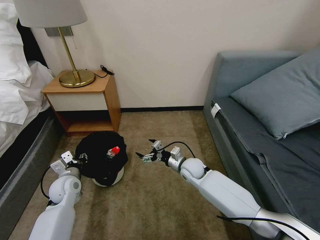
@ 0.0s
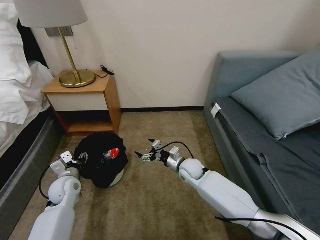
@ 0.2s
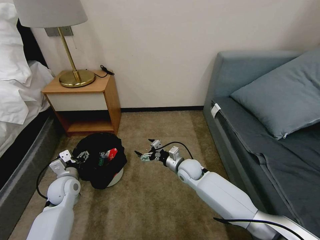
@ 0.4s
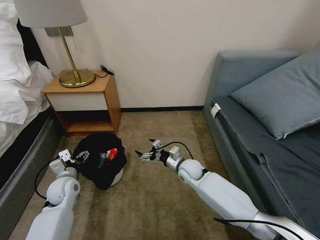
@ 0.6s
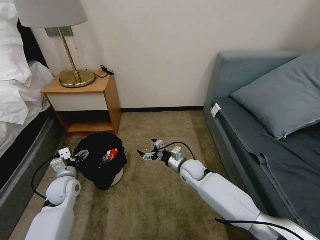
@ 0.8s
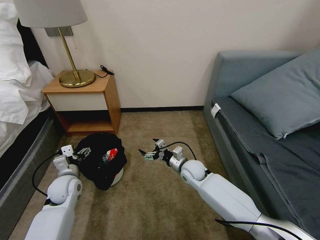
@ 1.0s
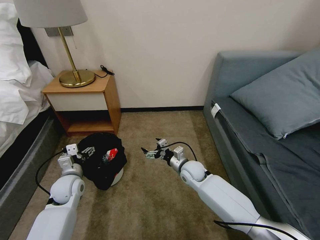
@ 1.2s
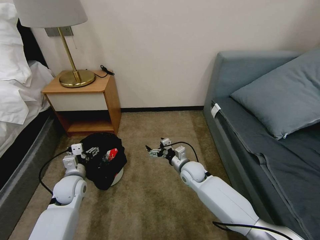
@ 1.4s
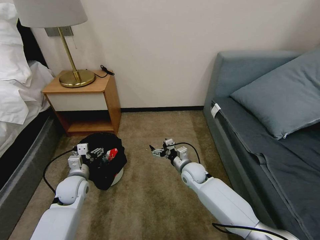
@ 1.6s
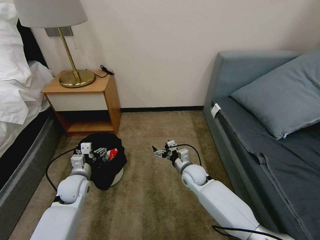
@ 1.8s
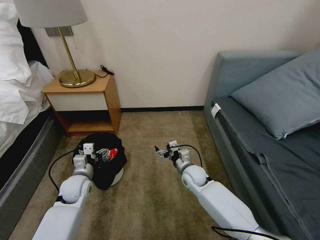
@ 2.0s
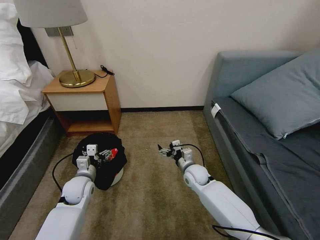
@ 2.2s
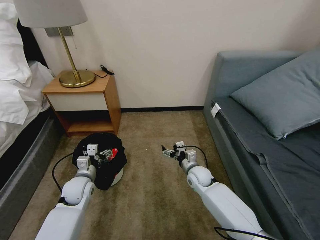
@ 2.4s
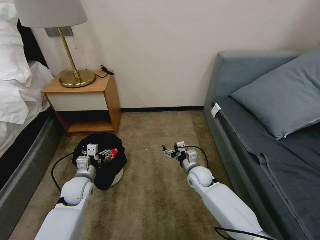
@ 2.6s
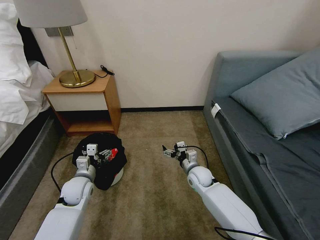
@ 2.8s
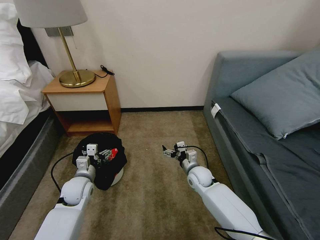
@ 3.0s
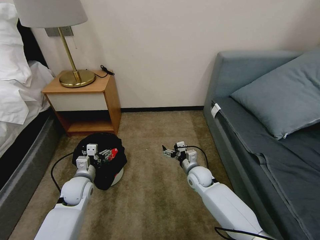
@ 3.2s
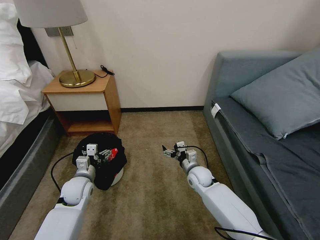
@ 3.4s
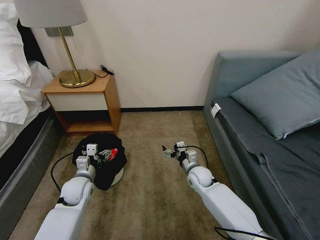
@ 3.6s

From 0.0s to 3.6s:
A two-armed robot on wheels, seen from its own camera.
Task of the whole recording: Pick up the trash bin, then pick up the garbage on the floor and place it into the trash bin.
From 0.0s to 1.8s: The left gripper opens its fingers.
From 1.8s to 3.6s: The grippers move only a little.

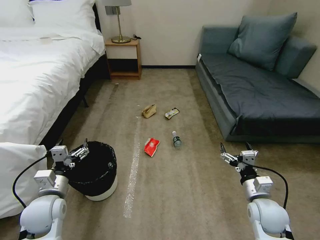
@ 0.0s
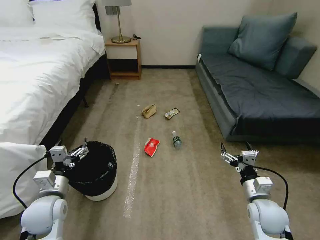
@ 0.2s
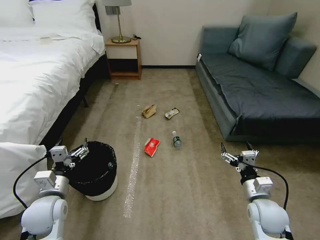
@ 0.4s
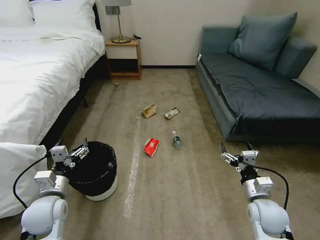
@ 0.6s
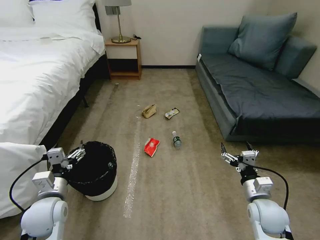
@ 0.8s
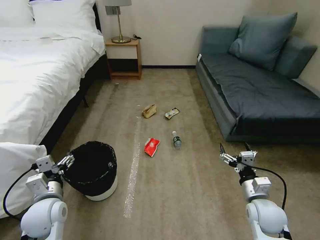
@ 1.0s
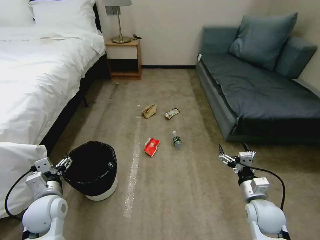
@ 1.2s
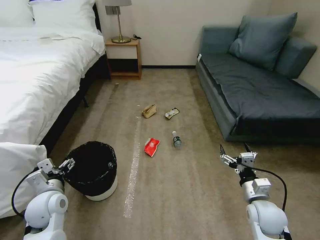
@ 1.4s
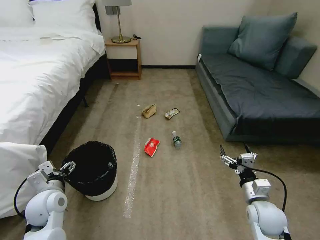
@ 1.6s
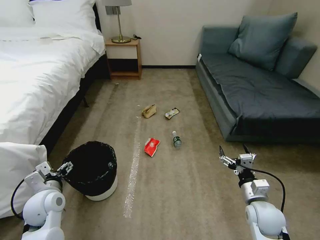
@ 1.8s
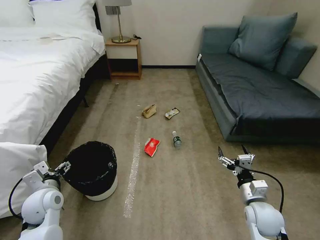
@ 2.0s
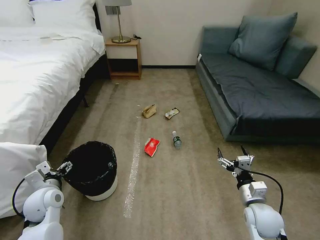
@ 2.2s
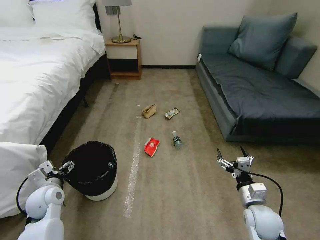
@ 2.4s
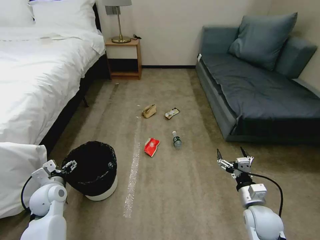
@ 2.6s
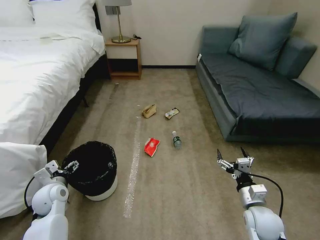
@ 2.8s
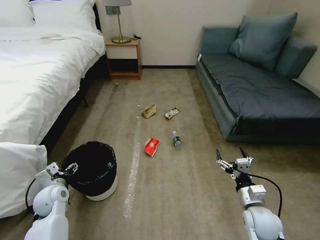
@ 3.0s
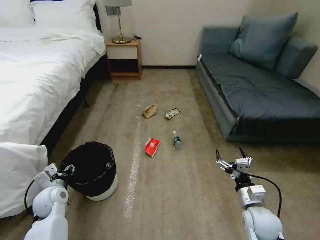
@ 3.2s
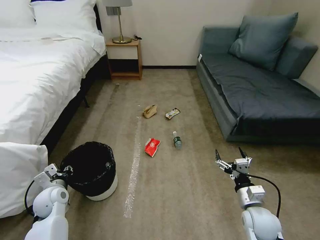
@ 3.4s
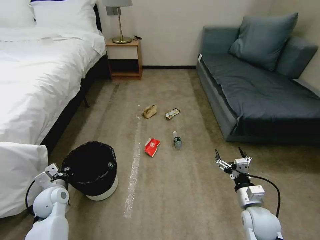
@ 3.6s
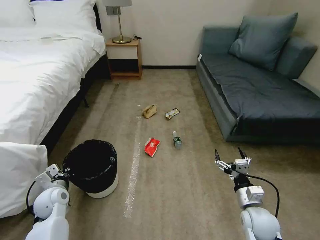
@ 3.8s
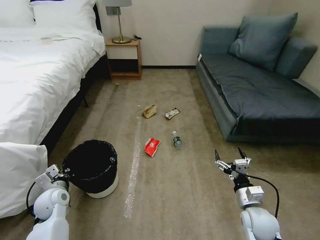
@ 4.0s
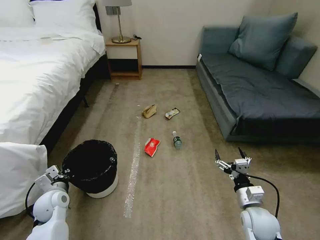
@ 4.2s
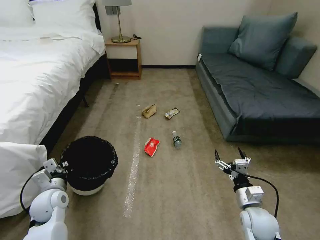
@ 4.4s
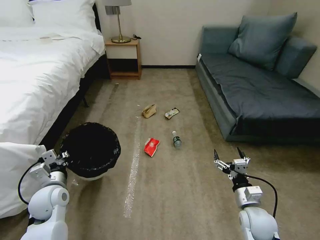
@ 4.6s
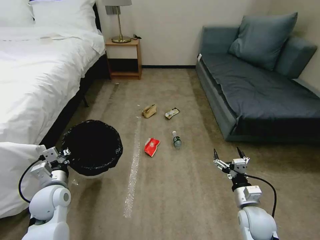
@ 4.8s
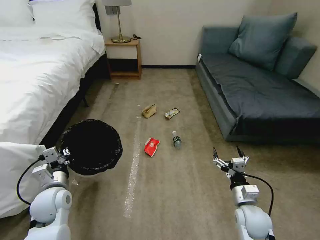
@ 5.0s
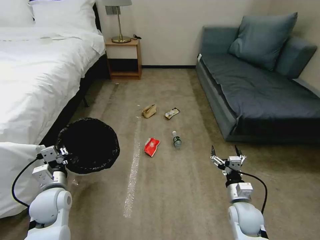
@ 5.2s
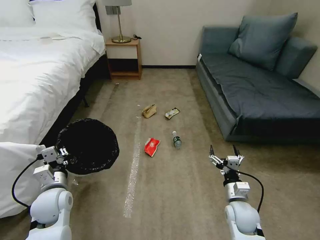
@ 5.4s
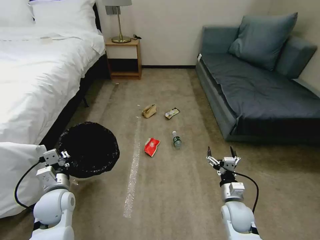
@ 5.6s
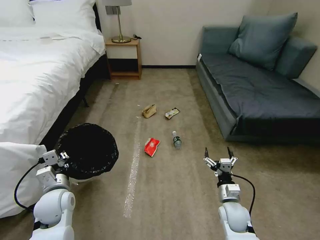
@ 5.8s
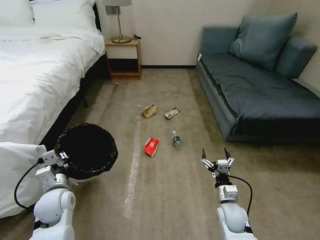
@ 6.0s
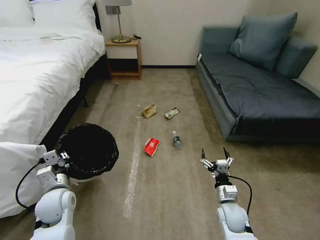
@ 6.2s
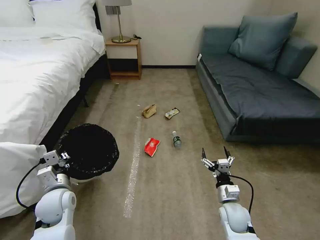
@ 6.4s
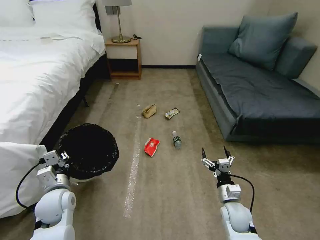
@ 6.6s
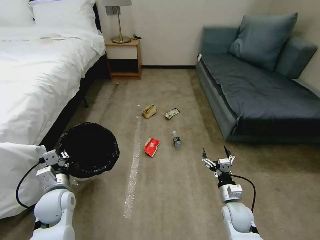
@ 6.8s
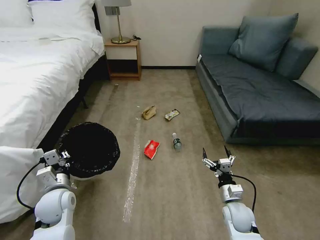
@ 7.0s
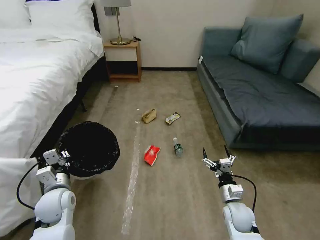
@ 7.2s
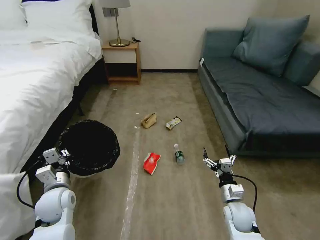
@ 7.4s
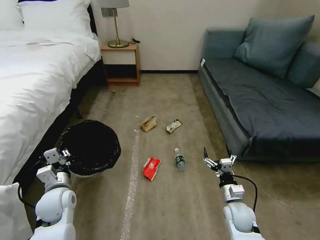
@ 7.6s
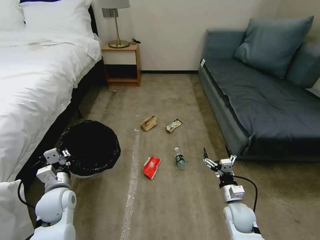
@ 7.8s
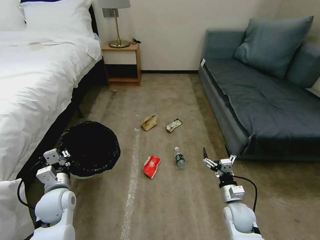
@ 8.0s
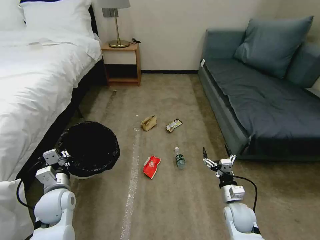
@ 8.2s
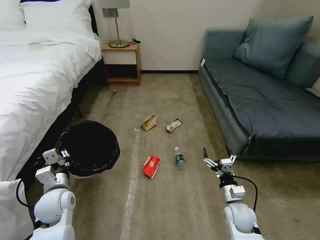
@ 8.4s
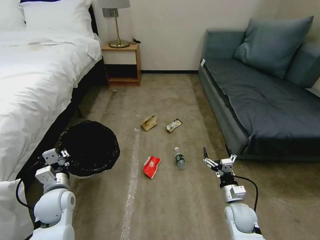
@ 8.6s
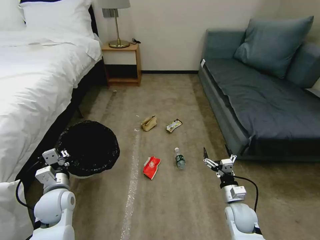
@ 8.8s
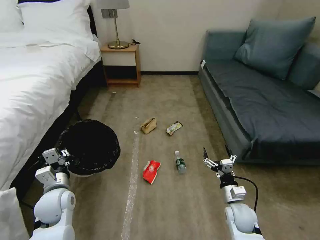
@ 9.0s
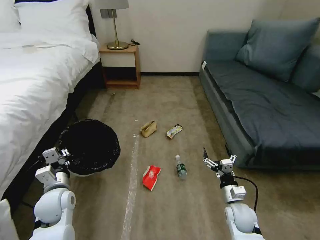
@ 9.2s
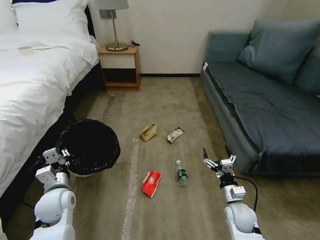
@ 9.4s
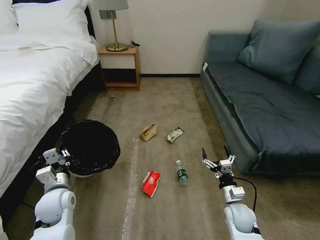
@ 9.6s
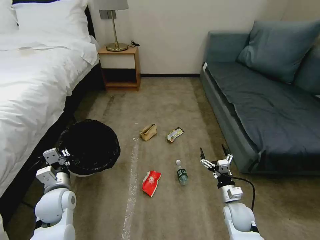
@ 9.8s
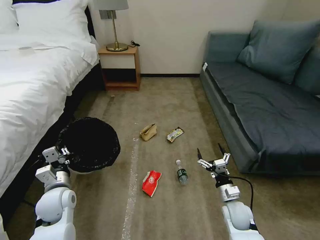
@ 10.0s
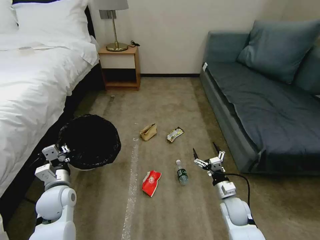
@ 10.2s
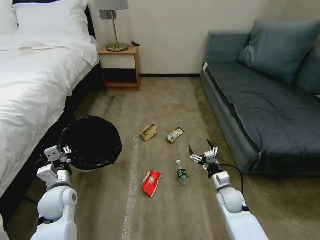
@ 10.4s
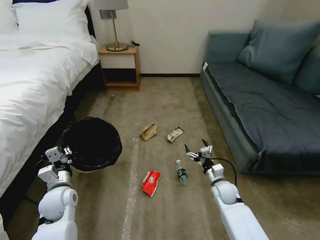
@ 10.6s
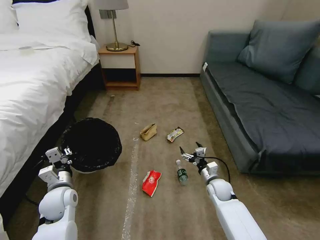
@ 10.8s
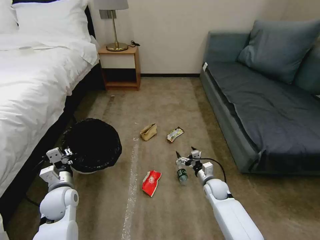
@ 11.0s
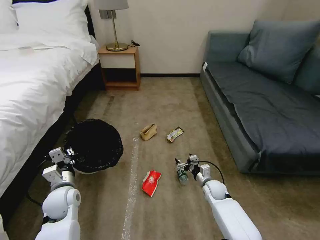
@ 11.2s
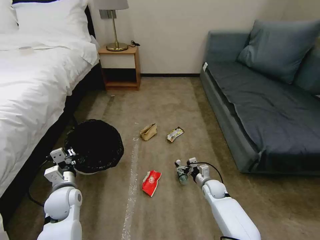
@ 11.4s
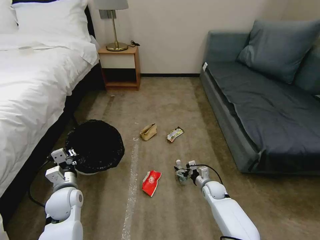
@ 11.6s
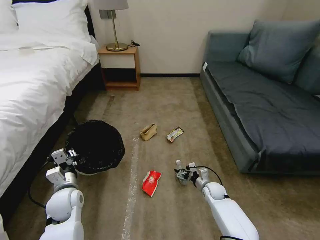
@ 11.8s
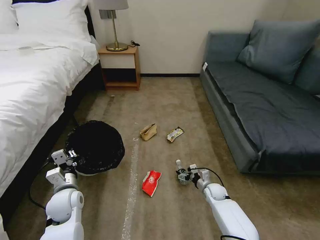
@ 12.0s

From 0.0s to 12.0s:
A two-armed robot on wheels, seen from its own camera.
Task of the whole recording: Pick up the trash bin, then pick up the garbage on the floor and place it into the trash bin.
From 1.6s to 3.0s: The left gripper is displaced downward by roughly 5 cm.
From 3.0s to 4.4s: The left gripper closes up.
From 4.4s to 6.0s: The right gripper travels downward and to the left by some 10 cm.
From 7.6s to 9.0s: Both grippers stay about where they are.
From 9.0s to 10.4s: The right gripper moves forward, approximately 5 cm.
From 10.4s to 12.0s: The right gripper travels downward and forward by approximately 10 cm.

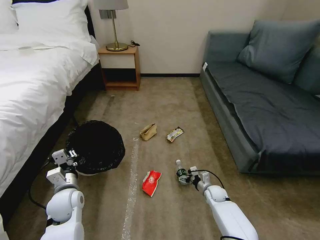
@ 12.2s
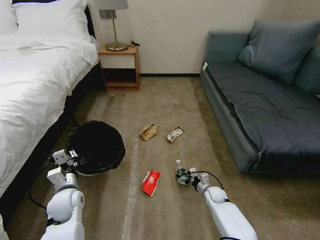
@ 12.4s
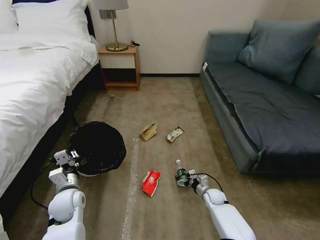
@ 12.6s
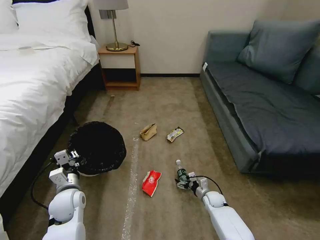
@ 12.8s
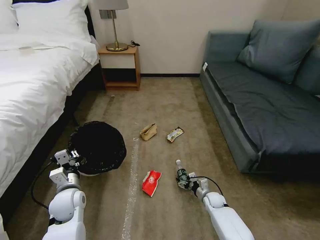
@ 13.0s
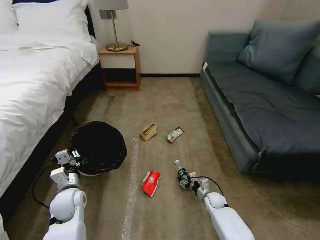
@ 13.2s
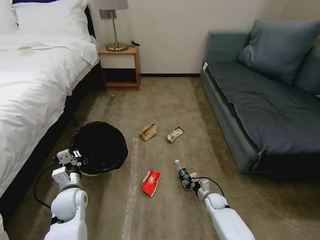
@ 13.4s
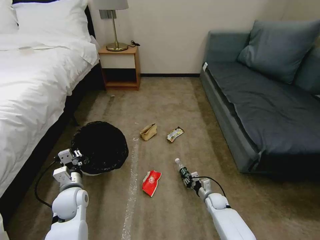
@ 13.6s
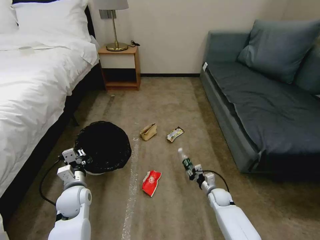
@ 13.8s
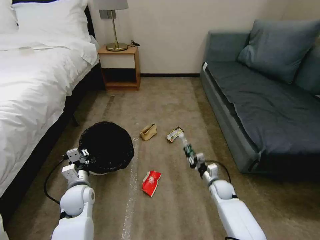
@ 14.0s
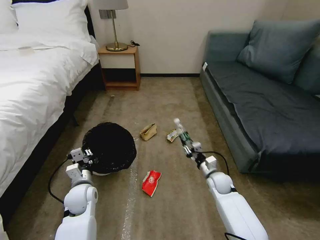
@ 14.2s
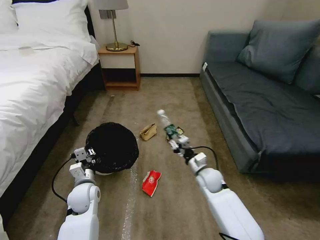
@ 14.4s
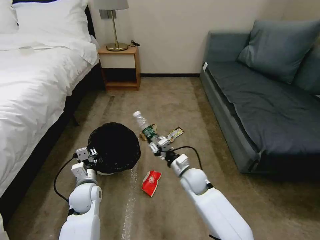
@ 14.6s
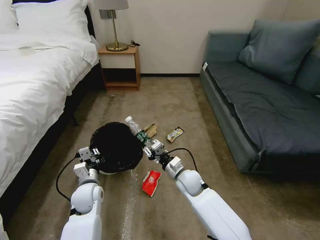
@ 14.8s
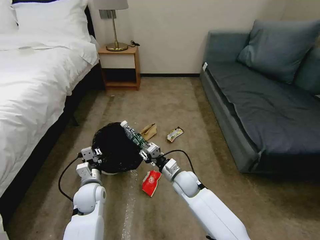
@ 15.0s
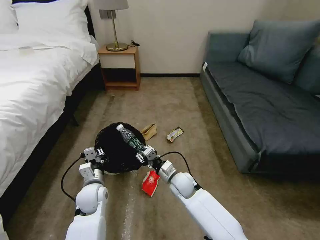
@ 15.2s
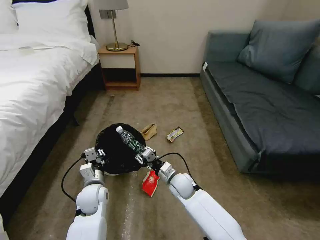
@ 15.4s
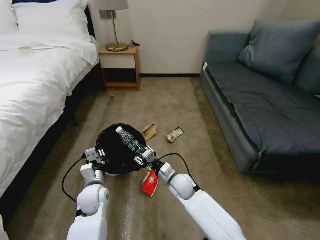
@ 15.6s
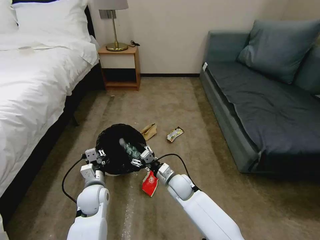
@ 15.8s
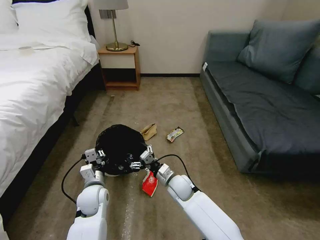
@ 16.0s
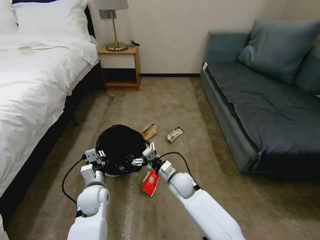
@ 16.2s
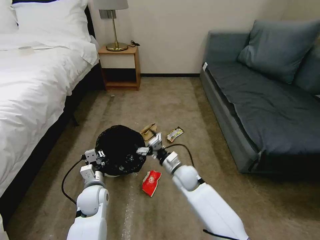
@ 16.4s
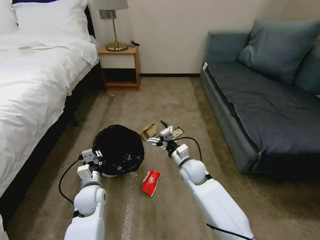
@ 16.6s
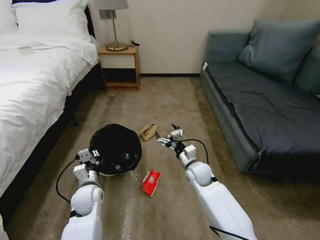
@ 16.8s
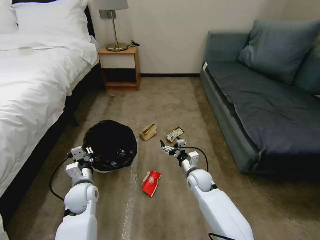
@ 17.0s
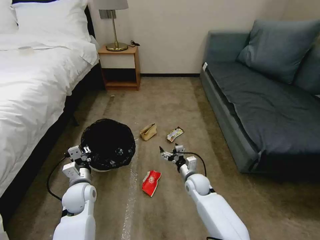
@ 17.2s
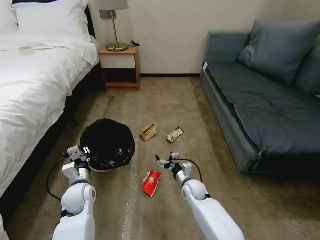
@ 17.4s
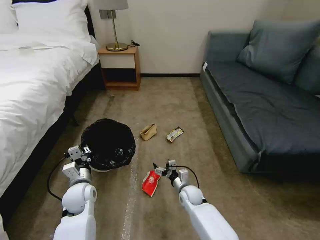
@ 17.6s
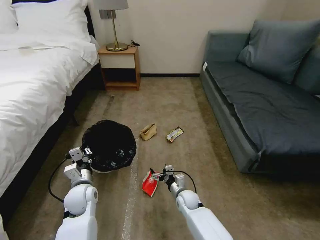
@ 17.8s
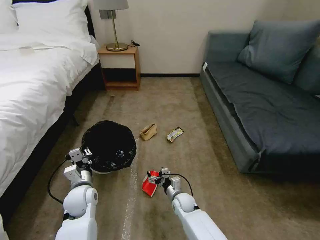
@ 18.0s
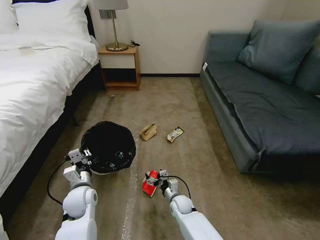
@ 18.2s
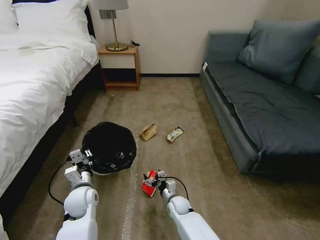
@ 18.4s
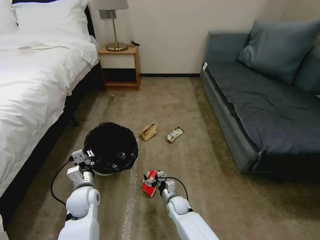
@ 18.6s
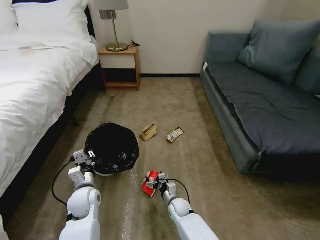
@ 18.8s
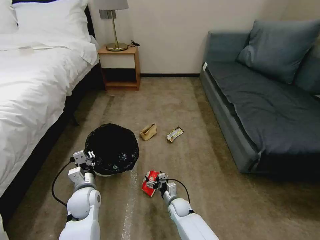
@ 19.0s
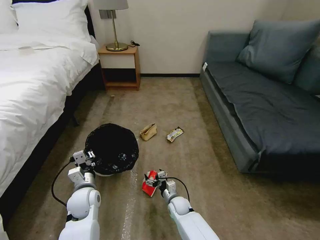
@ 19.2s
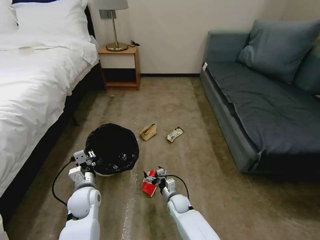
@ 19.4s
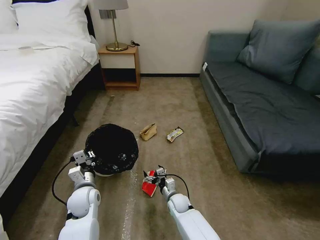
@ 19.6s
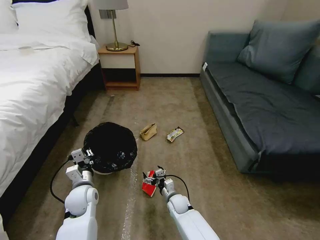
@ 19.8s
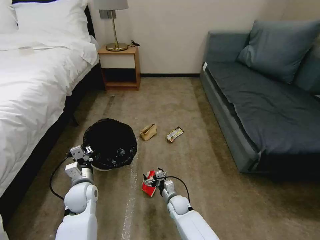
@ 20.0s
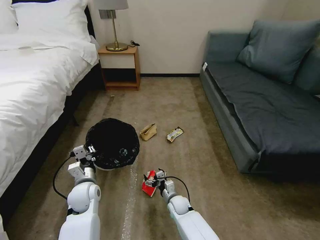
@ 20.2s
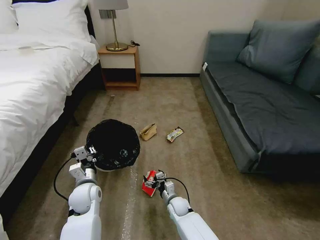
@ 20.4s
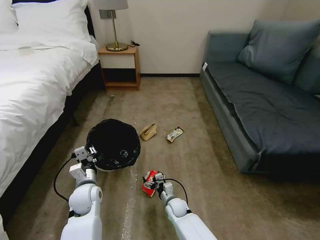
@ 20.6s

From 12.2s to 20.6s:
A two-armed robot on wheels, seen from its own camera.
Task of the whole recording: Pick up the trash bin, then pick up the garbage on the floor and place it into the trash bin.
From 12.2s to 13.6s: The right gripper closes up.
From 13.6s to 15.0s: The left gripper travels to the right by about 5 cm. Meanwhile the right gripper goes roughly 25 cm upward and to the left.
From 15.0s to 16.4s: The right gripper opens.
From 16.4s to 17.8s: The right gripper is displaced downward by some 15 cm.
From 17.8s to 20.6s: The grippers make only small movements.
